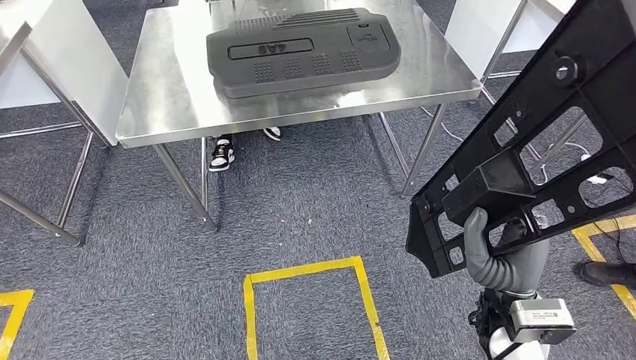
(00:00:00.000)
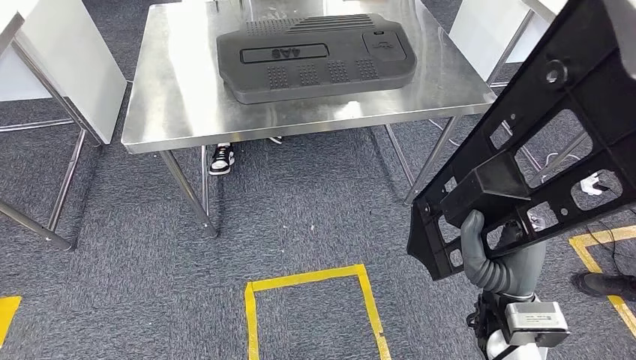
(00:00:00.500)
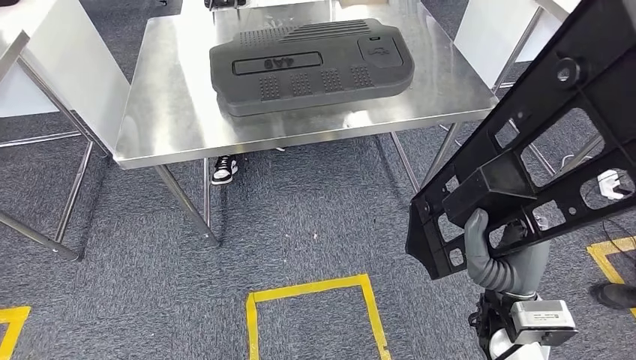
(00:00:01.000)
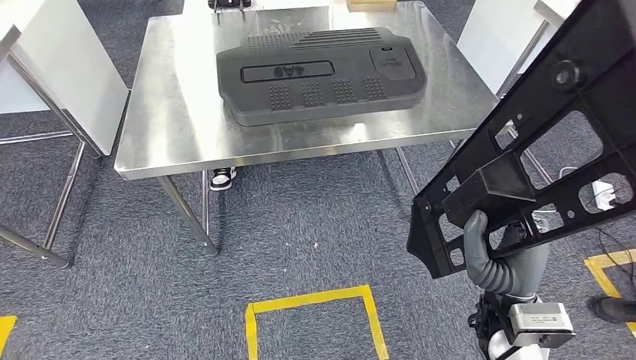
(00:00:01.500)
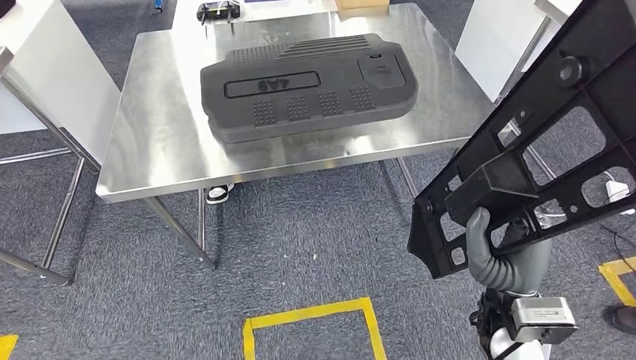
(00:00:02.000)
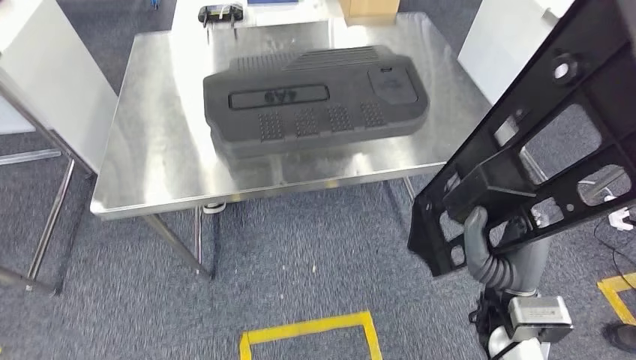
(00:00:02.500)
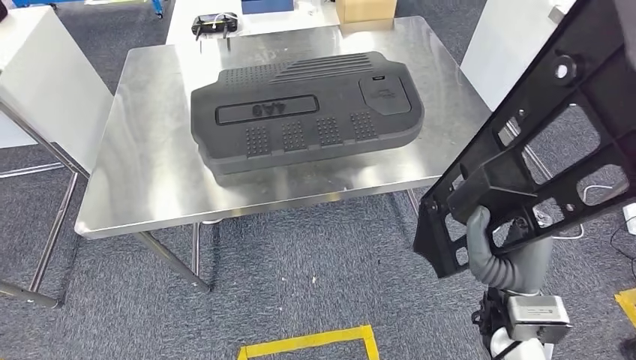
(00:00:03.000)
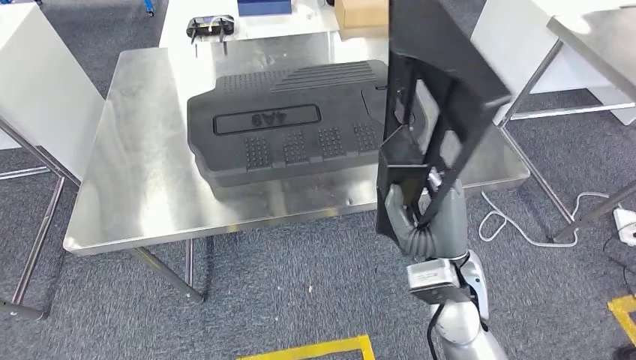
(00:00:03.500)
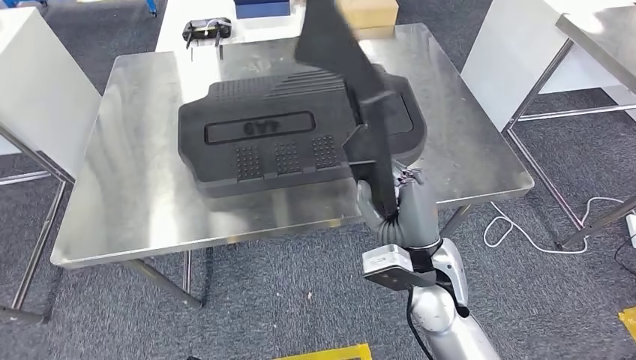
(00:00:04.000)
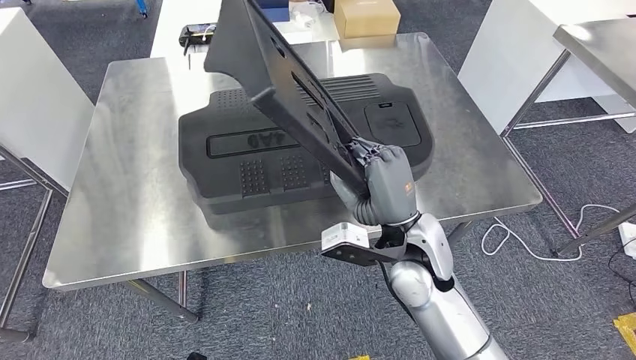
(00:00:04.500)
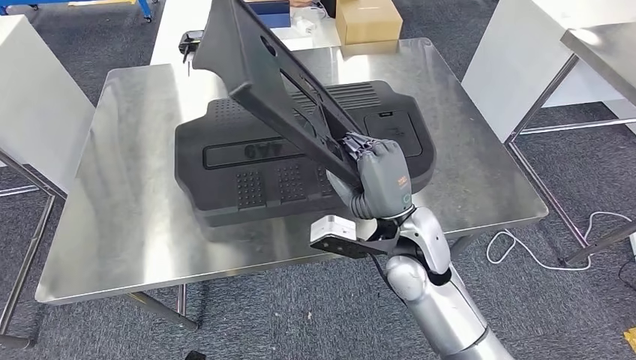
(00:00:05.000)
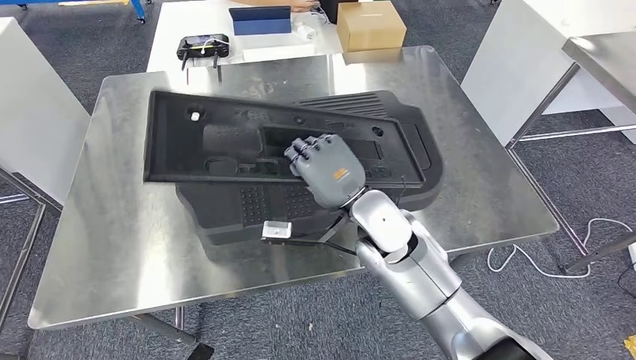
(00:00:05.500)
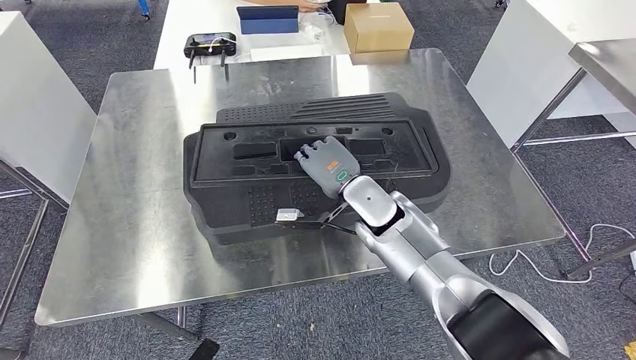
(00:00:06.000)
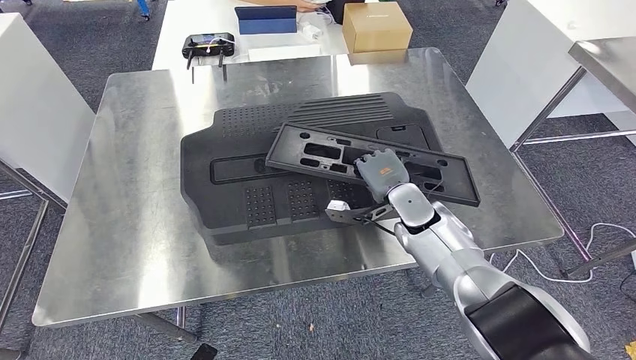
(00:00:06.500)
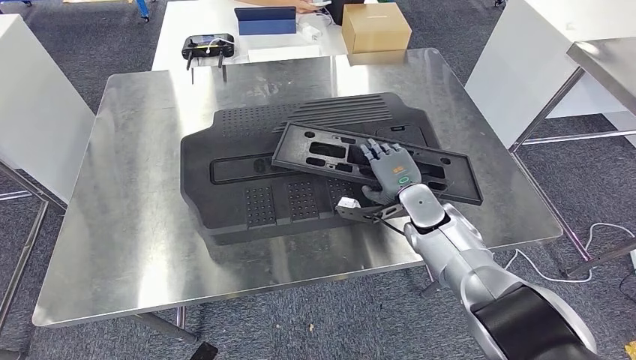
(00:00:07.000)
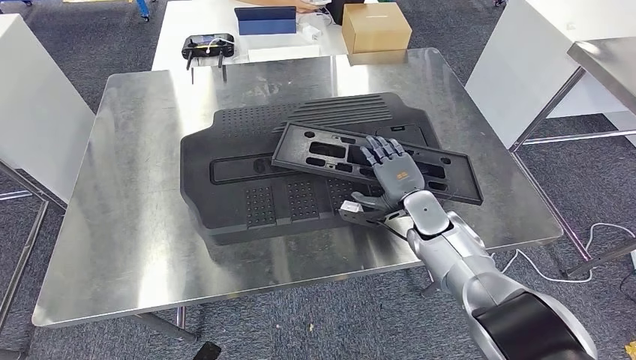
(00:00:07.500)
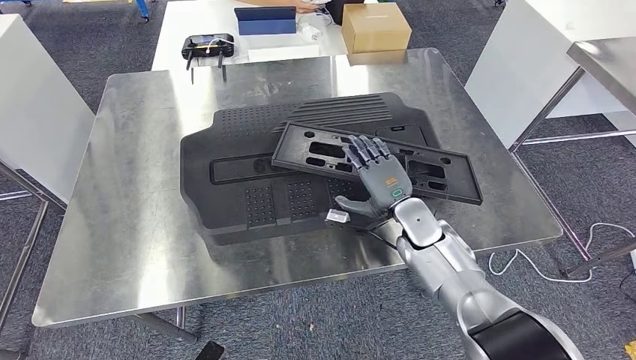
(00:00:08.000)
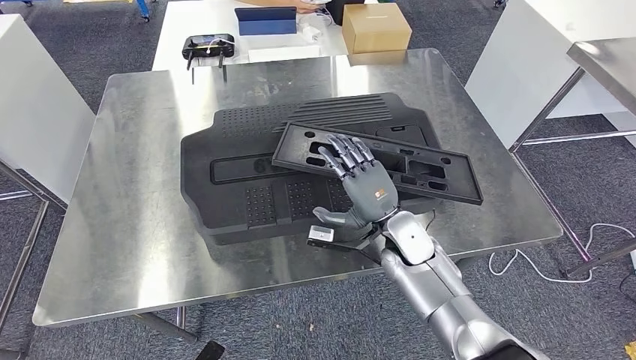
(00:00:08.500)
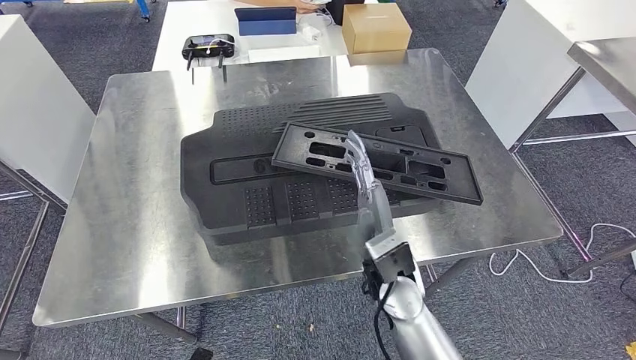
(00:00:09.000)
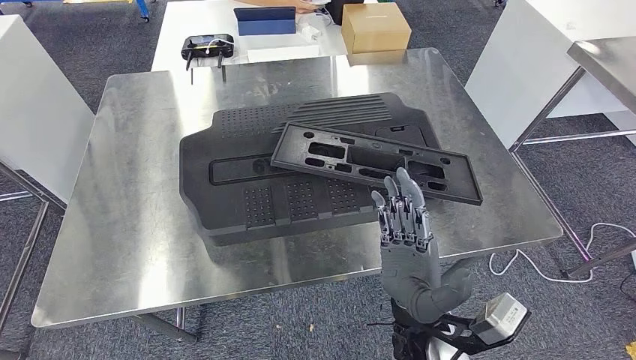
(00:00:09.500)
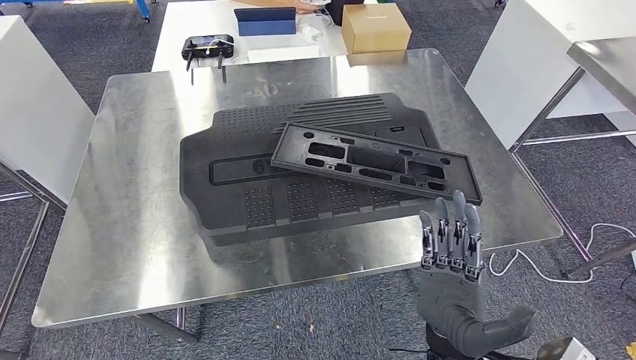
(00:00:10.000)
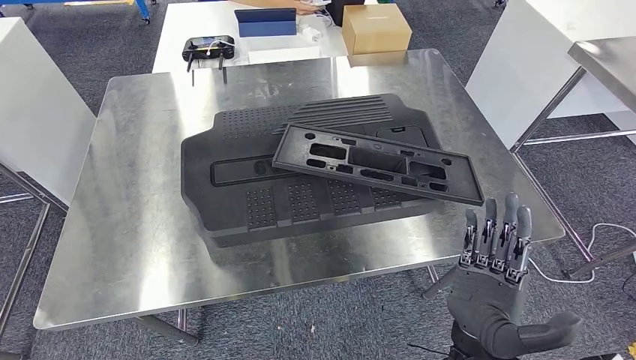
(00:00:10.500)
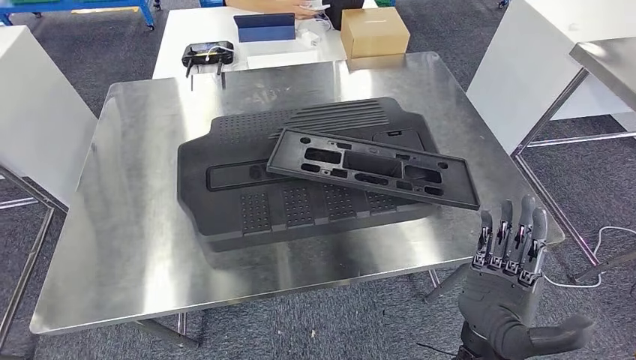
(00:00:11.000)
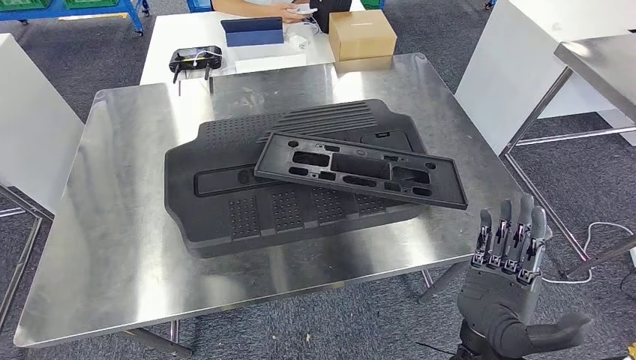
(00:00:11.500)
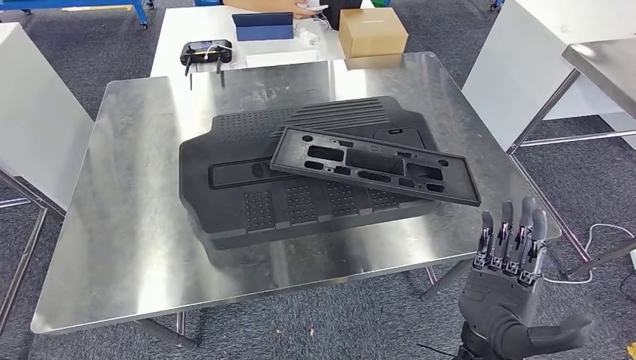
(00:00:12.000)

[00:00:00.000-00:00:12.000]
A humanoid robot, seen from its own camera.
Step, 00:00:00.000 to 00:00:08.000: Insert the large material into the corresponding slot on the workbench.
00:00:06.000 to 00:00:08.000: The right hand goes approximately 10 cm to the right and downward.
00:00:08.000 to 00:00:10.000: The left hand heads backward, covering roughly 5 cm, while the right hand heads backward, covering some 25 cm.
00:00:10.000 to 00:00:12.000: The hands make only small movements.

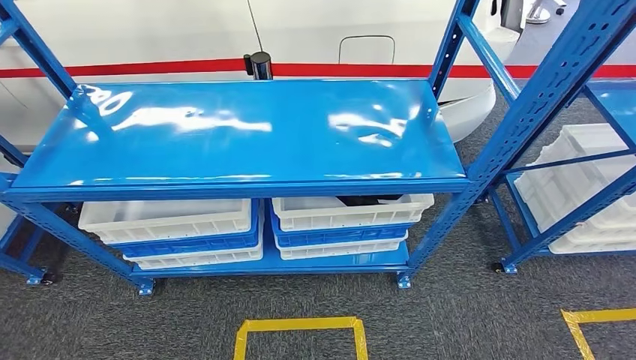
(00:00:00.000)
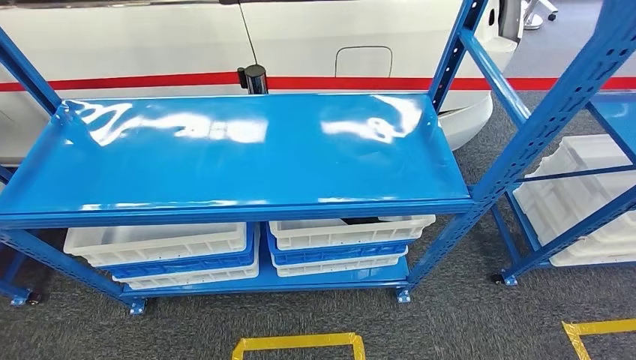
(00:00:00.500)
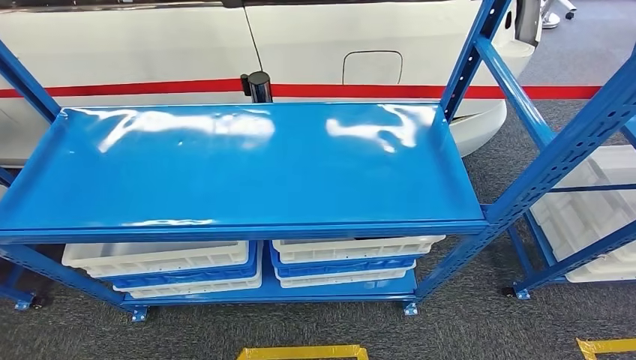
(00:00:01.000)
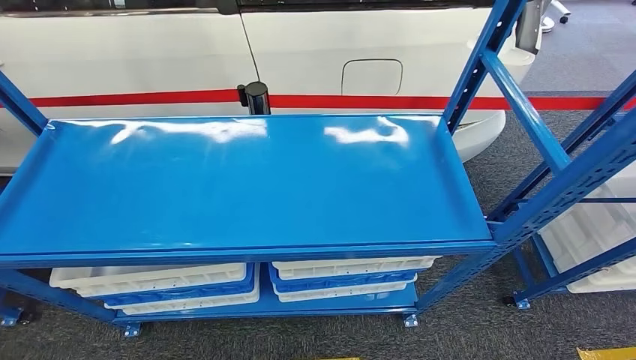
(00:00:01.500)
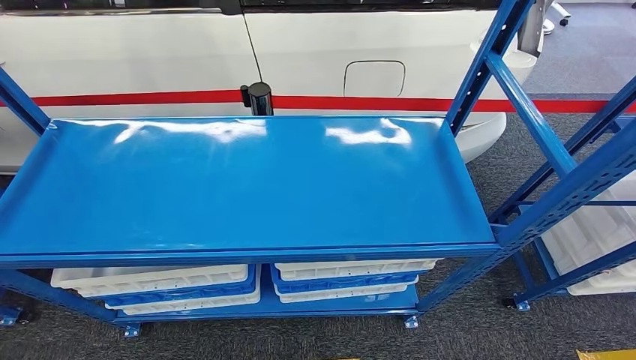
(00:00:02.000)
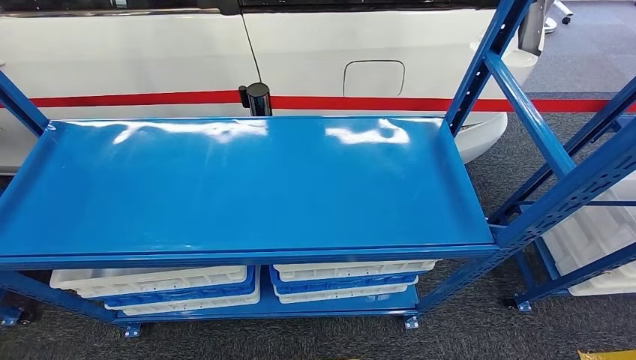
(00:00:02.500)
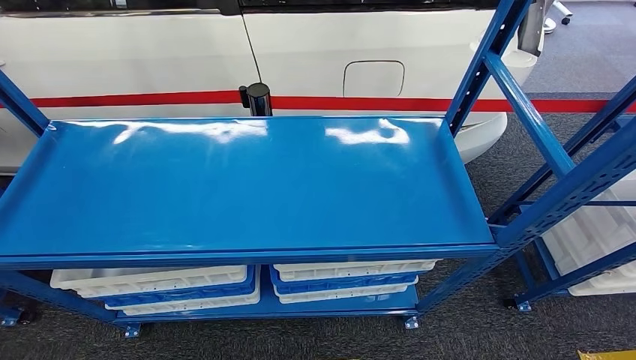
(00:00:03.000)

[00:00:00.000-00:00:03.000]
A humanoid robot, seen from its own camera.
Step, 00:00:00.000 to 00:00:03.000: Return to the initial position at the shelf.
00:00:01.500 to 00:00:03.000: The hands move only a little.
